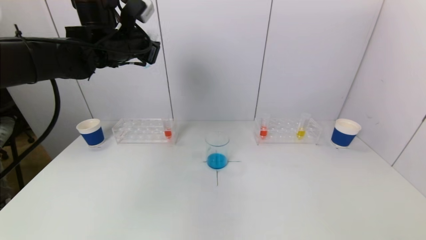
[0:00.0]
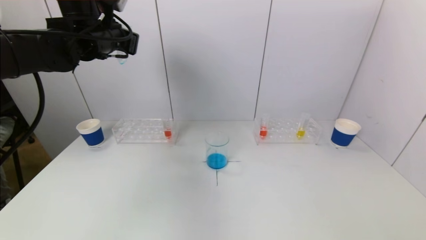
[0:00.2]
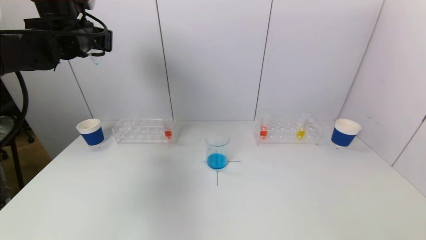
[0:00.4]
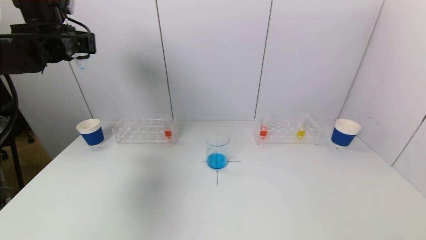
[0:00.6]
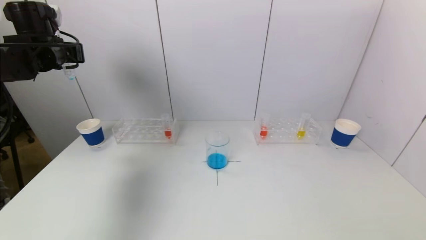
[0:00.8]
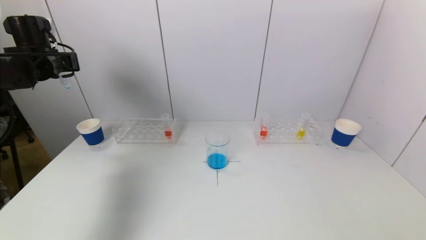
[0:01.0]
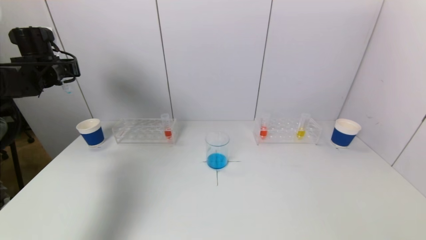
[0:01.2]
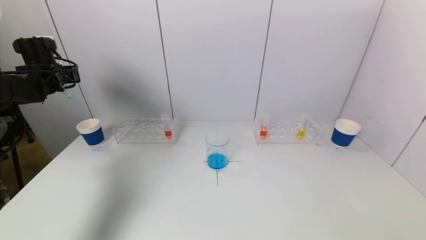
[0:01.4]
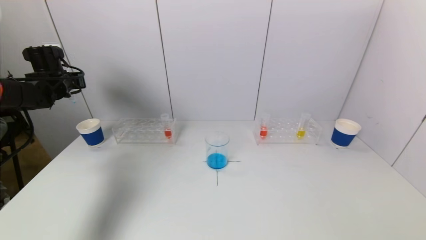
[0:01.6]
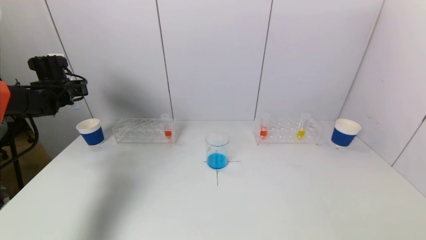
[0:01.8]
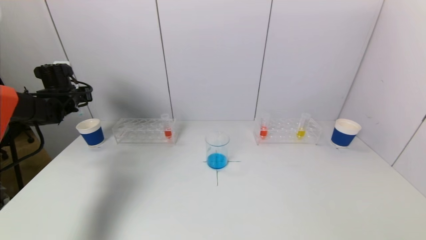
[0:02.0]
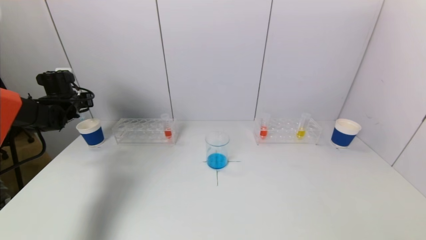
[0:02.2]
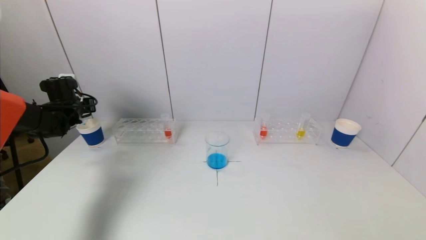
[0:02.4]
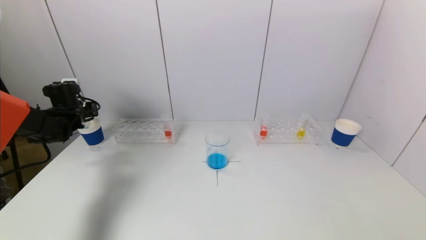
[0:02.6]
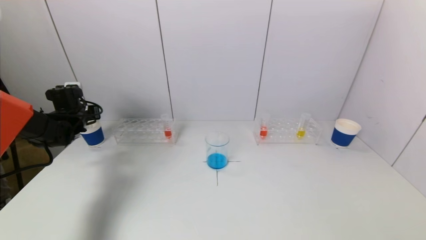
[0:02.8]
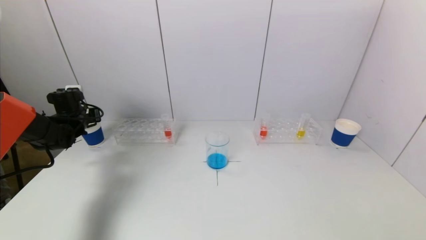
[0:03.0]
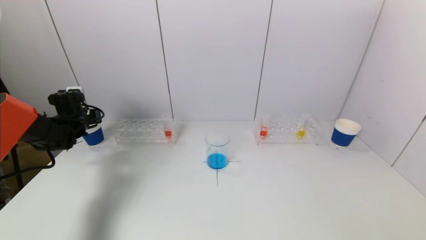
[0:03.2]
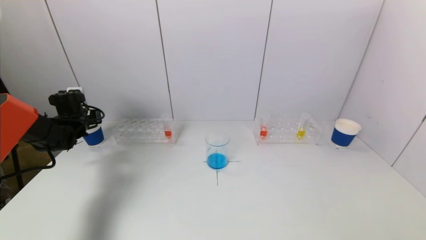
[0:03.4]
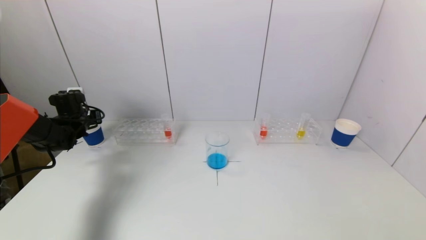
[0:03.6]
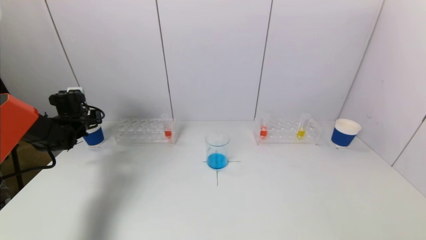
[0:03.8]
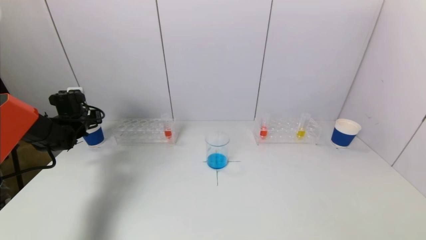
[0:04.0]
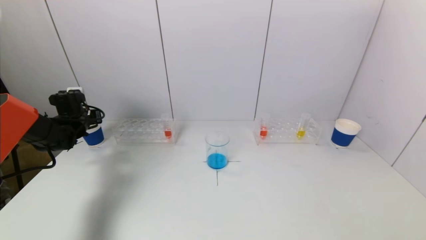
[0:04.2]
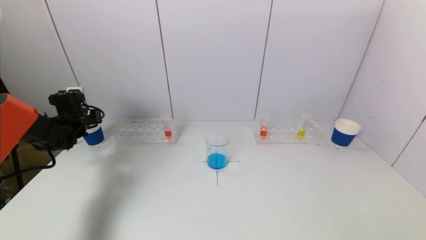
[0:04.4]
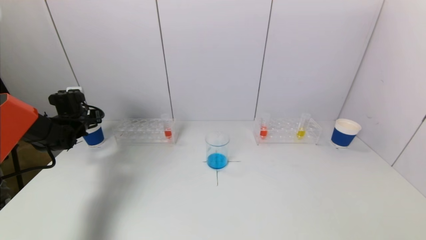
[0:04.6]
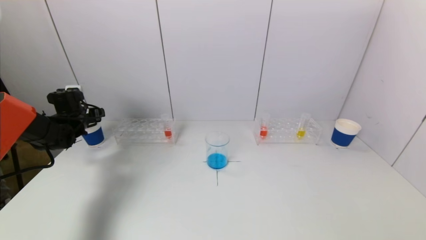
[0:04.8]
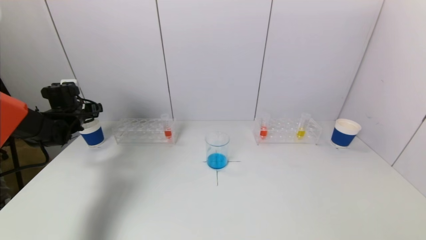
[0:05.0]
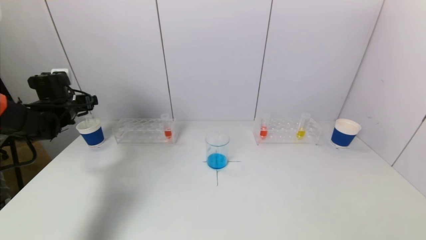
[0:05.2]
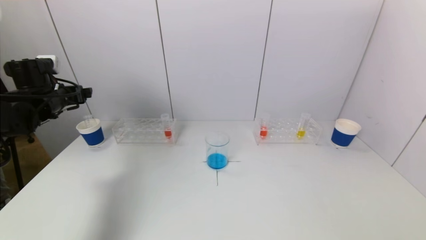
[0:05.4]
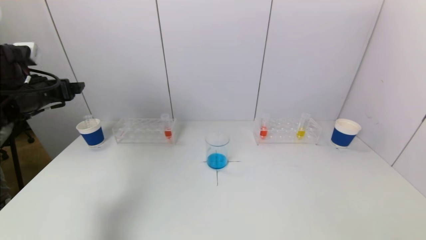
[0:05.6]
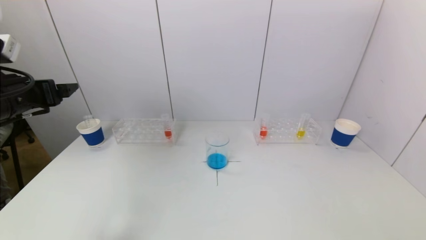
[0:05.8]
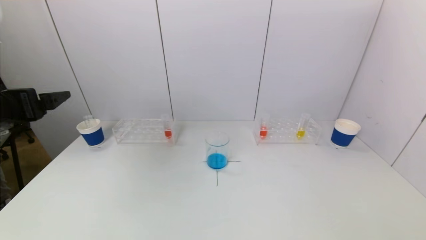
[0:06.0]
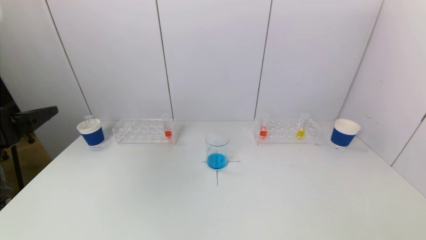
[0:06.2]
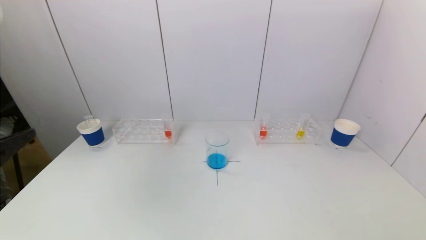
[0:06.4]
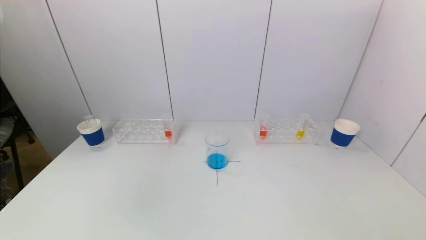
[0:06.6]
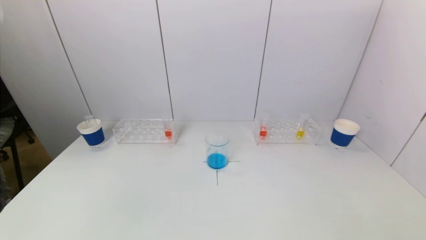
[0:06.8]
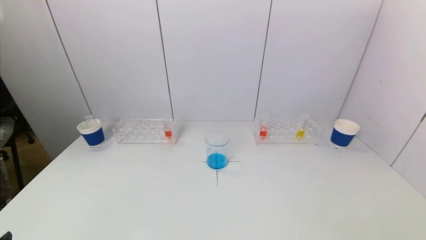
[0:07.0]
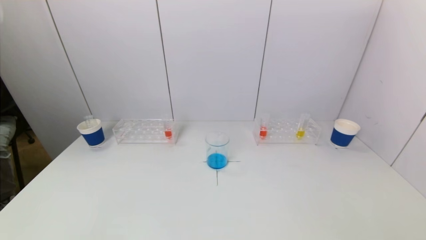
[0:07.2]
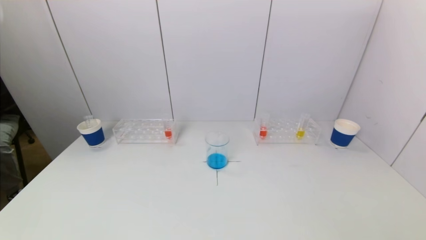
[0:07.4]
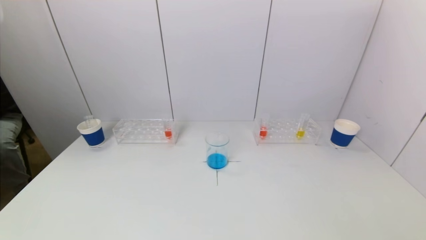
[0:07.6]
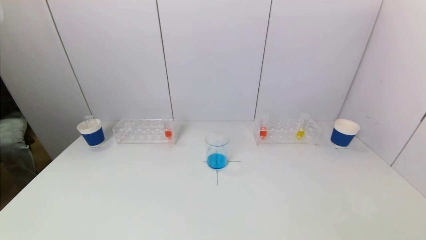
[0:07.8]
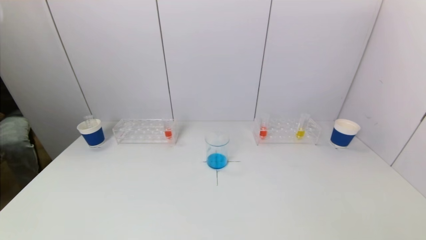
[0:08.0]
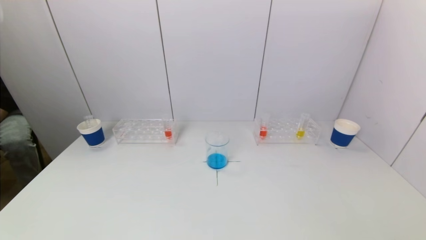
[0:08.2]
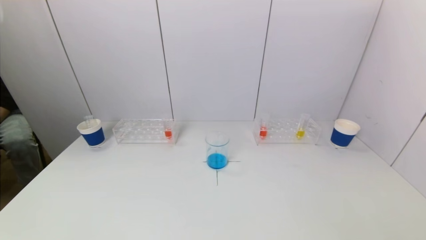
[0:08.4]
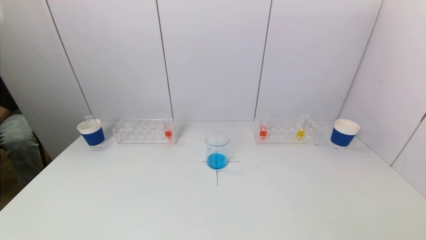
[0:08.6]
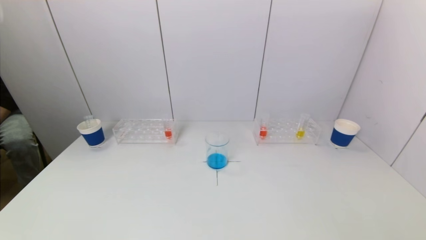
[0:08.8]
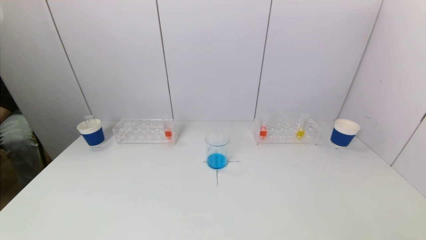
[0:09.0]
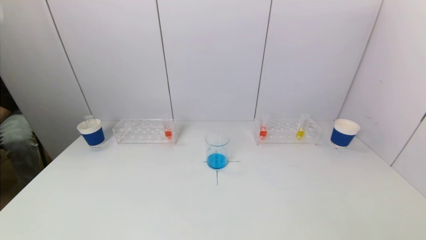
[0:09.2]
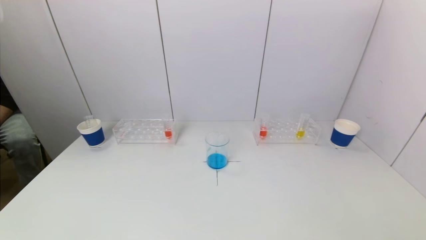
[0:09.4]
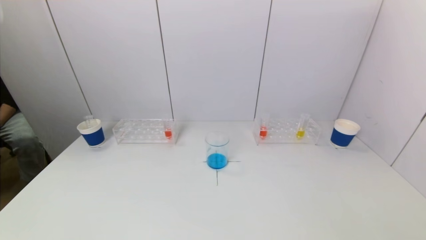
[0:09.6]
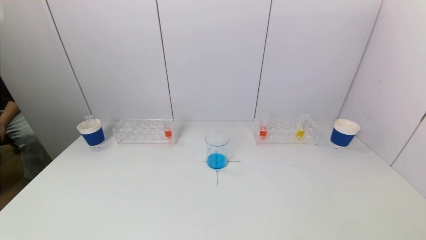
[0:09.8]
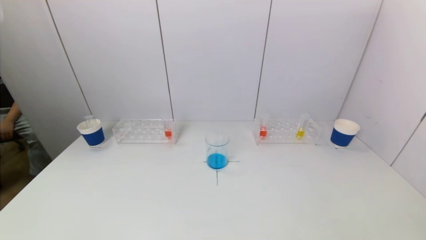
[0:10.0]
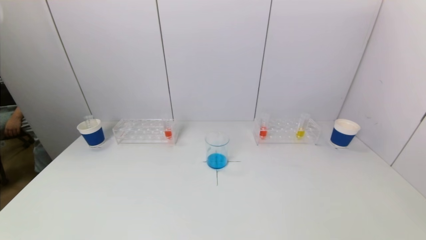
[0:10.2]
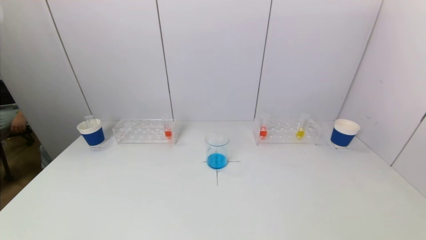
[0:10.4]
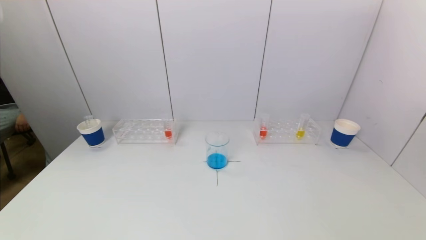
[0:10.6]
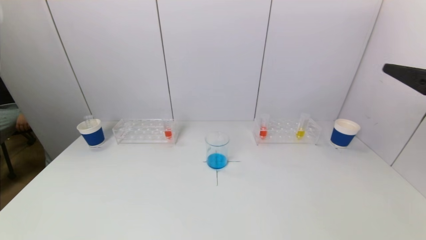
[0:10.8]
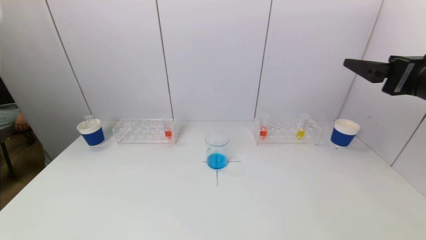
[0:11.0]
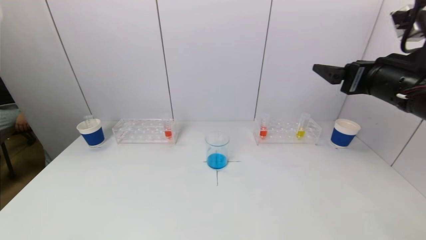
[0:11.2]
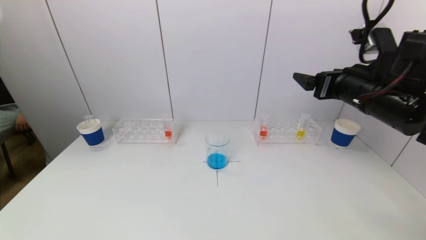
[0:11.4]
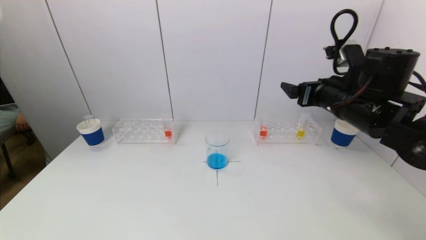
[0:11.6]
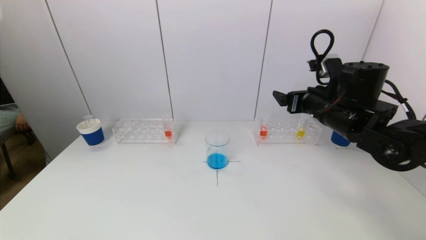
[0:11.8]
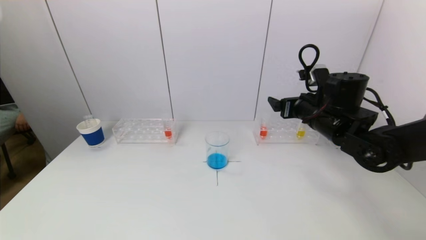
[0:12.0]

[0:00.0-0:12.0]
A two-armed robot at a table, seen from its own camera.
Task of the whole recording: pick up a test tube with pigment on left test tube rack and a test tube with pigment on right test tube rack by grippers and pour them into the beaker.
Step, 0:00.0 to 0:04.6: Place the test tube into the paper cup with the left gripper.
0:00.0 to 0:01.6: The left gripper moves to the left and downward, roughly 25 cm.
0:01.6 to 0:03.0: The left gripper heads downward, covering some 10 cm.
0:03.0 to 0:04.4: The left gripper opens up.
0:04.4 to 0:06.0: The left gripper shifts roughly 30 cm backward and upward, and opens.
0:06.0 to 0:07.6: The left gripper goes approximately 30 cm backward and downward.
0:10.4 to 0:12.0: The right gripper is displaced forward and to the left by some 30 cm.

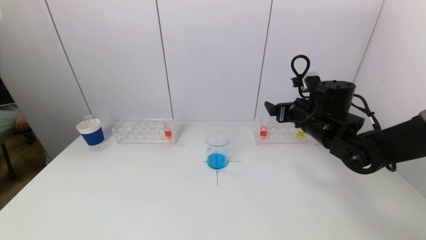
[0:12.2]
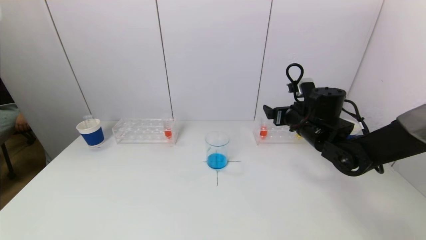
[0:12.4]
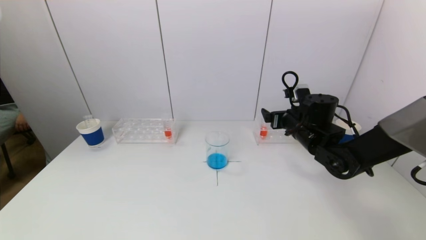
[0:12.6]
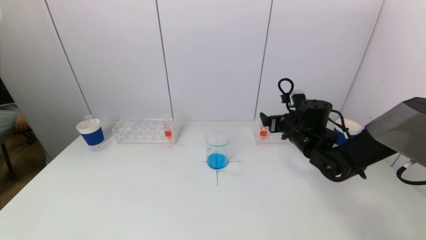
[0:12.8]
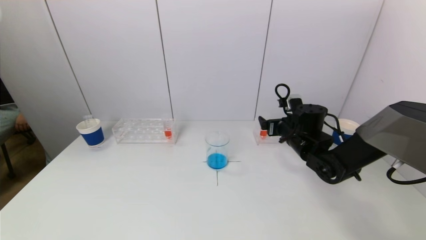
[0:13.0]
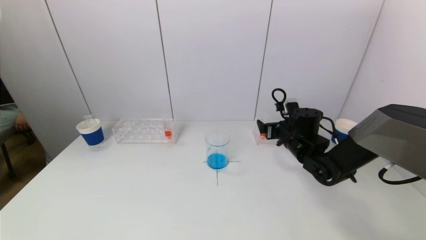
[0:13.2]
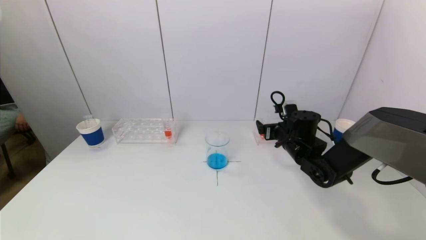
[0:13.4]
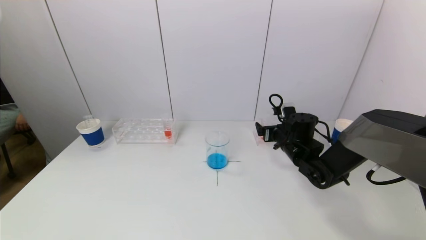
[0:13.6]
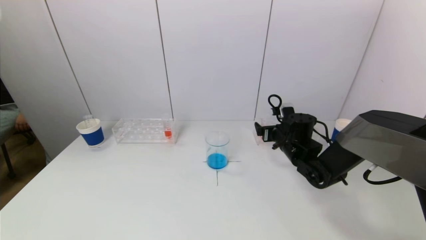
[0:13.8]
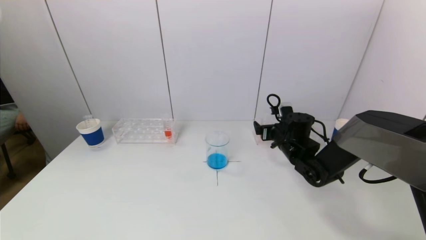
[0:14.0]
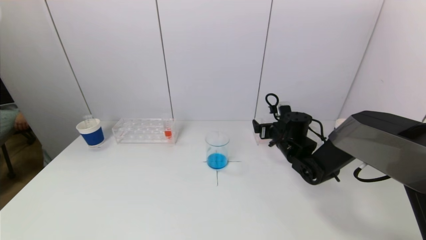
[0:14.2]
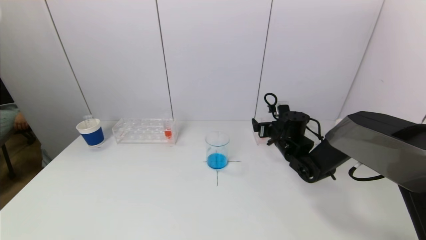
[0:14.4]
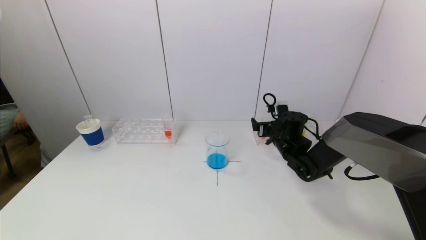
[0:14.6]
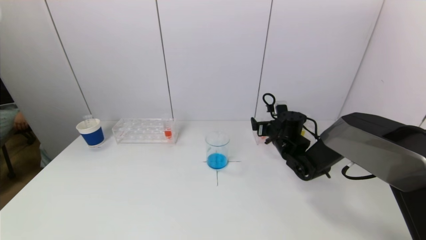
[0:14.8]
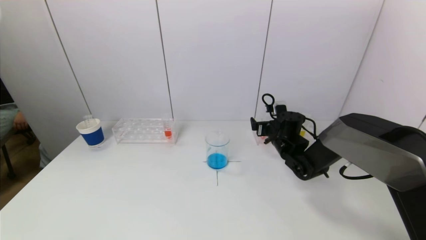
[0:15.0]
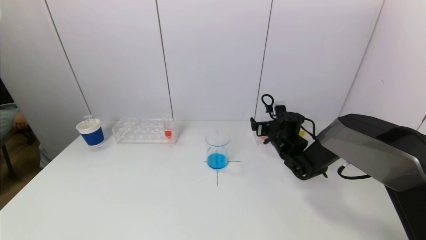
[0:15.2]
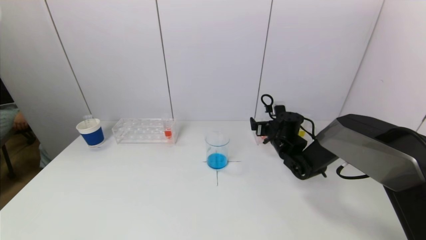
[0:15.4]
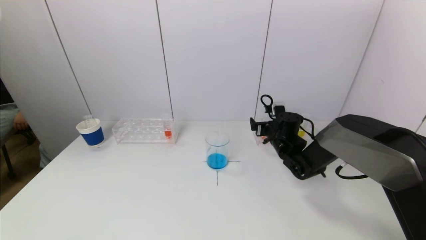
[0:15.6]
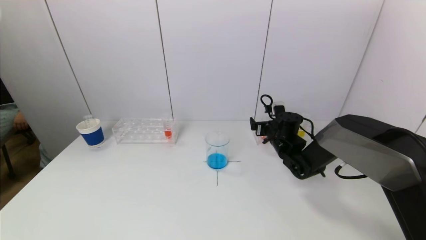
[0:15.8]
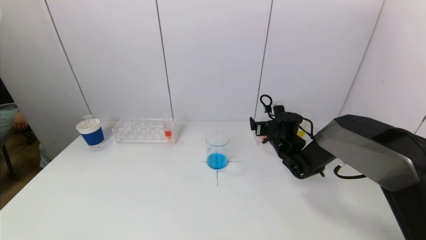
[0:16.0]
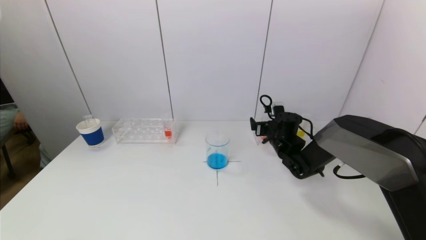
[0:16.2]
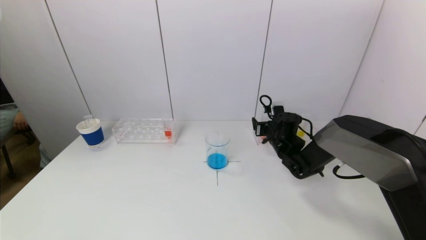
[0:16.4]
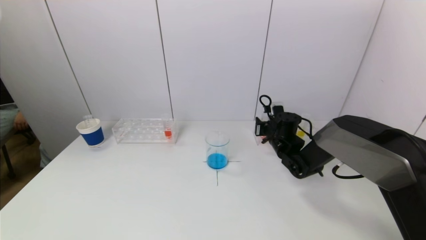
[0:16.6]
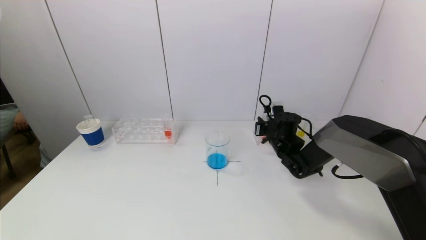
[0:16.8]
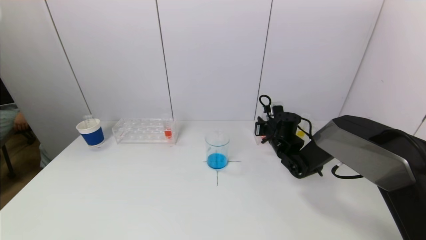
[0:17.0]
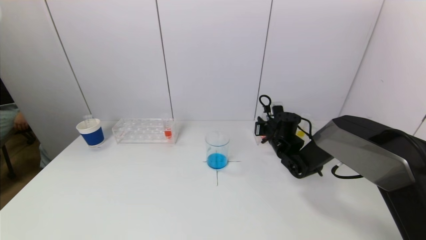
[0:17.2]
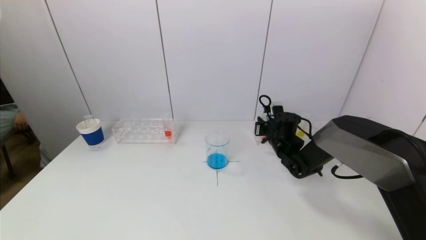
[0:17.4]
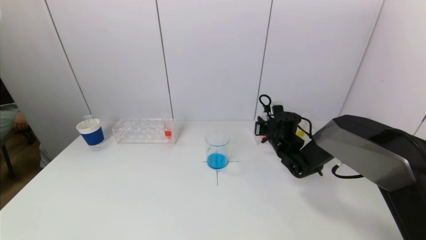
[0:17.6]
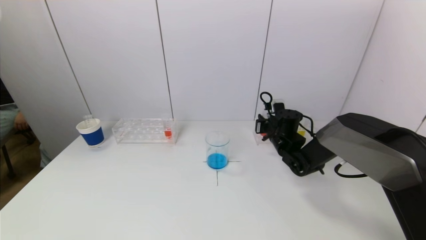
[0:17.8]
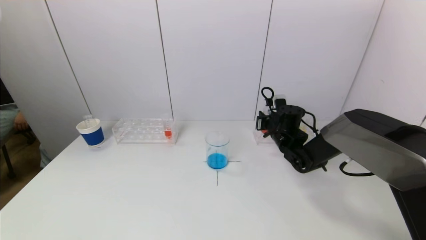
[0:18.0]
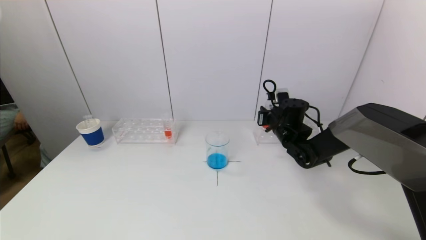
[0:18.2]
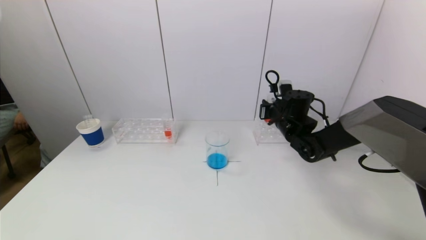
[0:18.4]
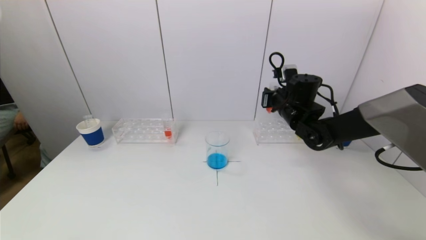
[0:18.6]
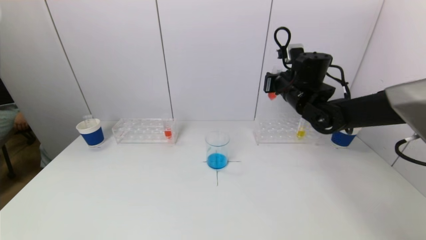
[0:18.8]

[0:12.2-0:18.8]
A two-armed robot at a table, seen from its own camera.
Task of the whole recording: pick up a test tube with pigment on left test tube rack and a test tube with pigment on right test tube rack by grippers and pour them into the beaker.
Step, 0:12.2 to 0:17.0: Grasp the red reagent with the right gripper.
0:12.2 to 0:13.8: The right gripper goes approximately 10 cm downward.
0:13.8 to 0:15.4: The grippers make only small movements.
0:15.4 to 0:17.2: The right gripper closes.
0:17.2 to 0:18.8: The right gripper shifts about 15 cm upward.
